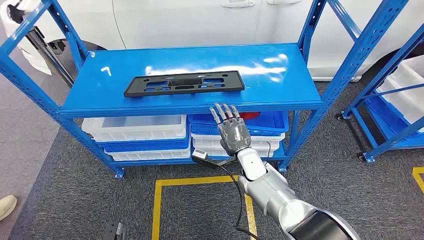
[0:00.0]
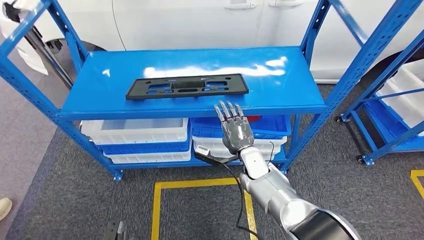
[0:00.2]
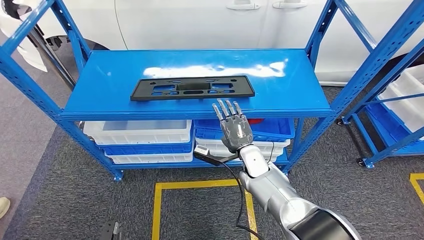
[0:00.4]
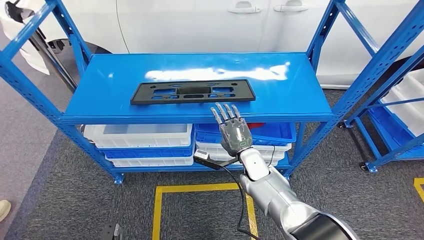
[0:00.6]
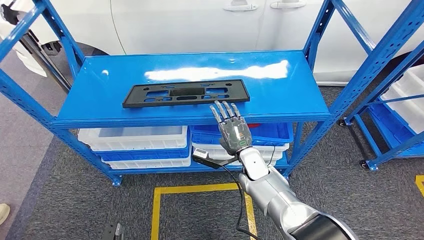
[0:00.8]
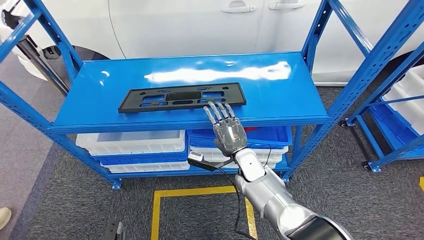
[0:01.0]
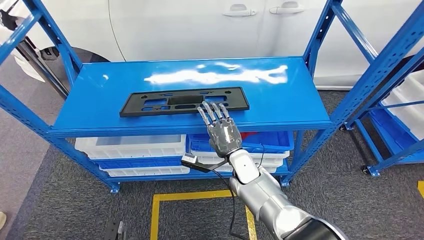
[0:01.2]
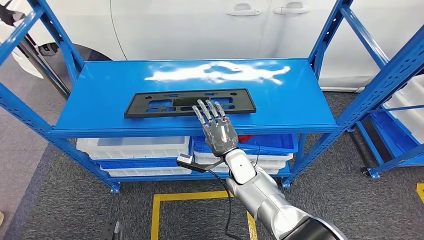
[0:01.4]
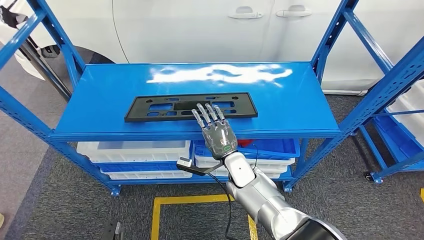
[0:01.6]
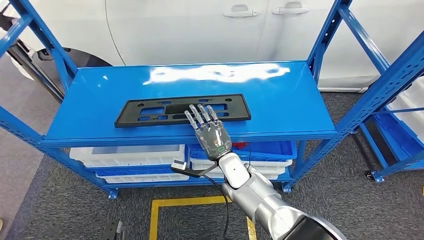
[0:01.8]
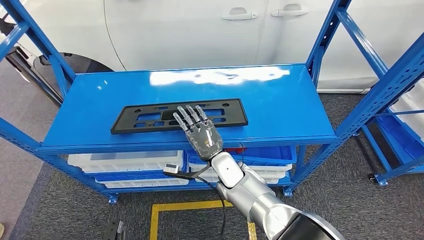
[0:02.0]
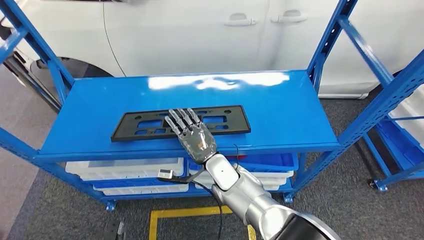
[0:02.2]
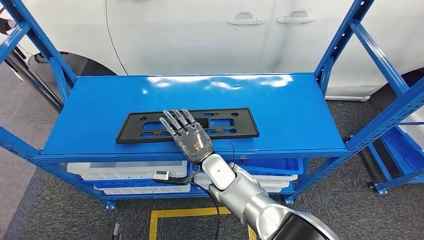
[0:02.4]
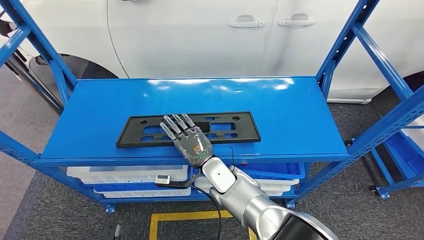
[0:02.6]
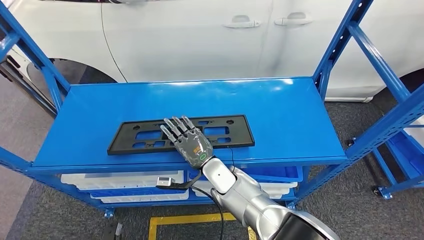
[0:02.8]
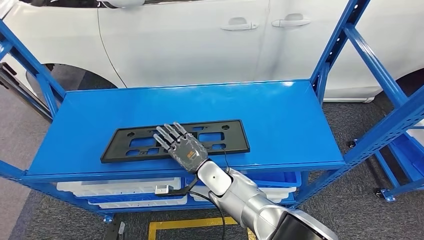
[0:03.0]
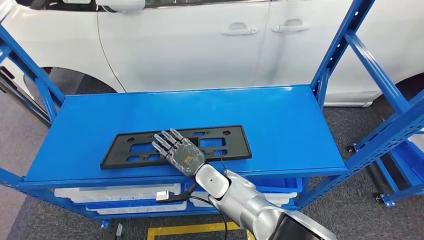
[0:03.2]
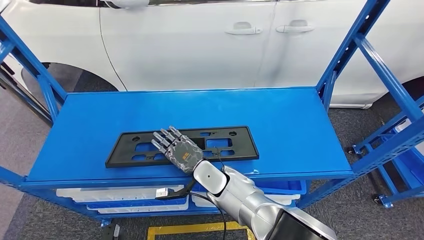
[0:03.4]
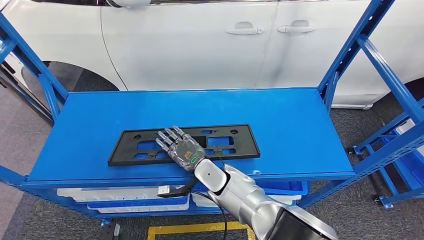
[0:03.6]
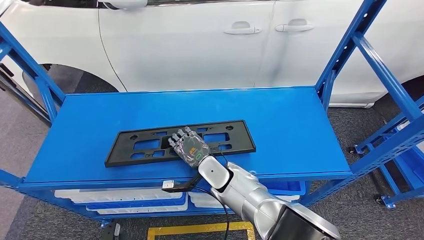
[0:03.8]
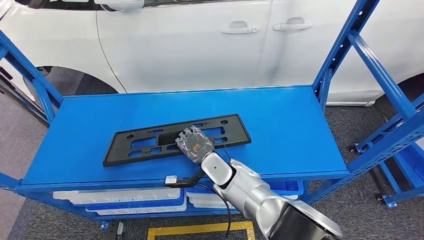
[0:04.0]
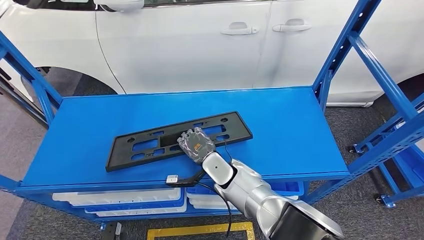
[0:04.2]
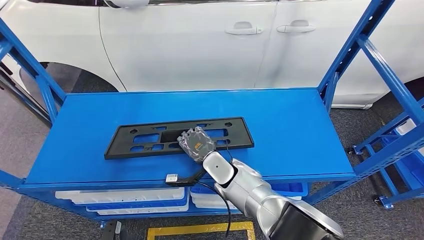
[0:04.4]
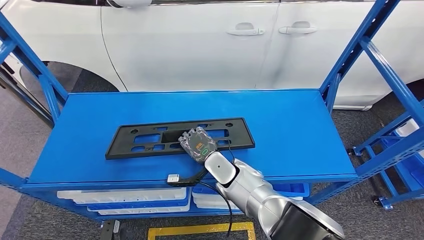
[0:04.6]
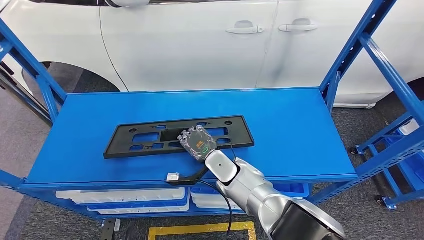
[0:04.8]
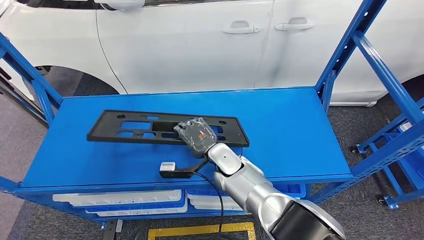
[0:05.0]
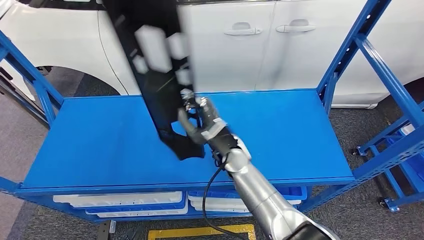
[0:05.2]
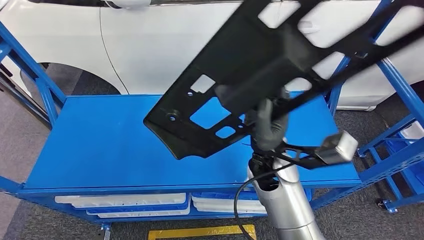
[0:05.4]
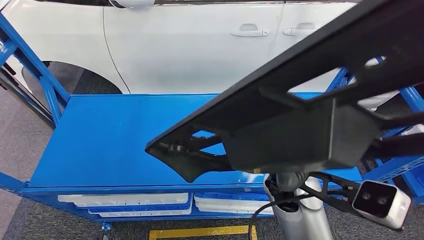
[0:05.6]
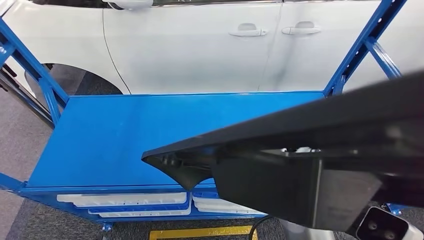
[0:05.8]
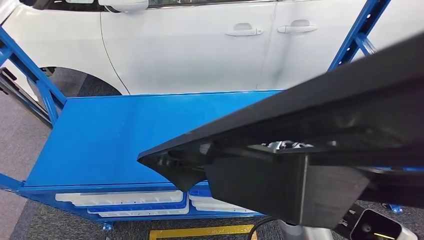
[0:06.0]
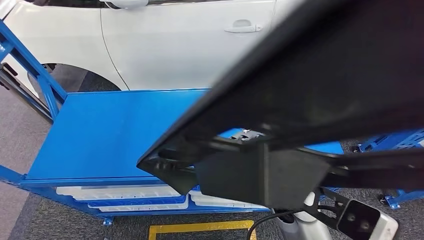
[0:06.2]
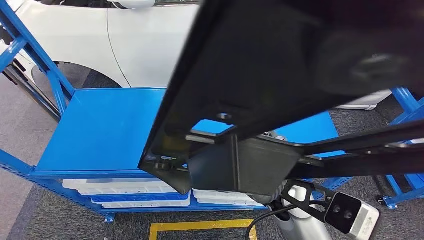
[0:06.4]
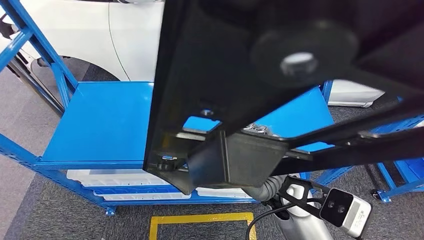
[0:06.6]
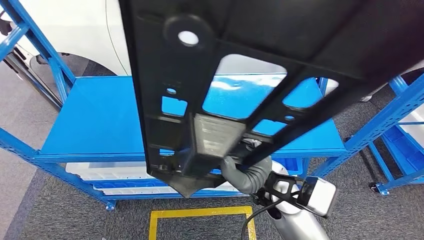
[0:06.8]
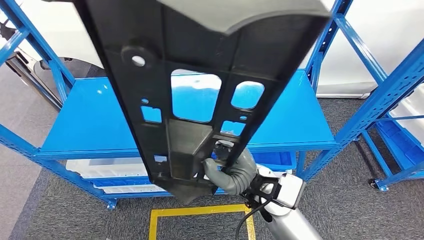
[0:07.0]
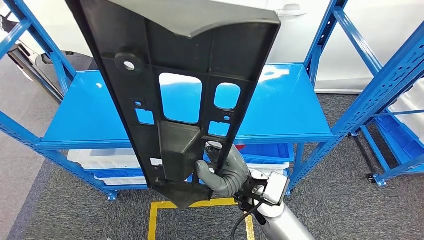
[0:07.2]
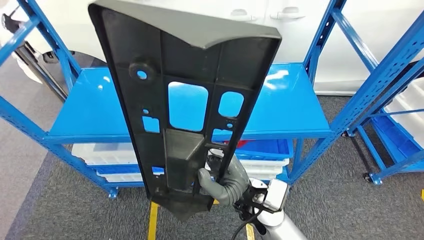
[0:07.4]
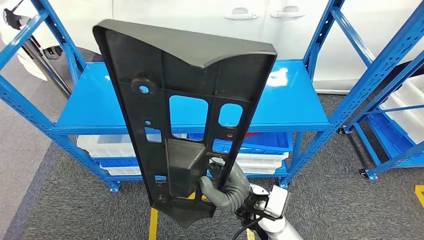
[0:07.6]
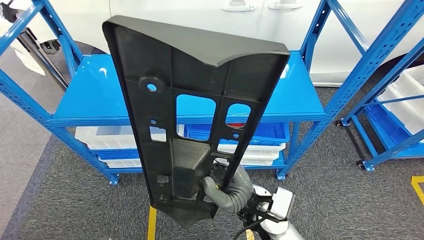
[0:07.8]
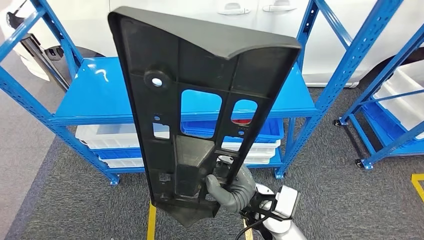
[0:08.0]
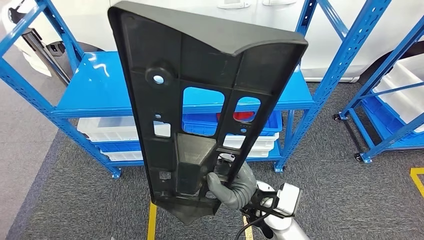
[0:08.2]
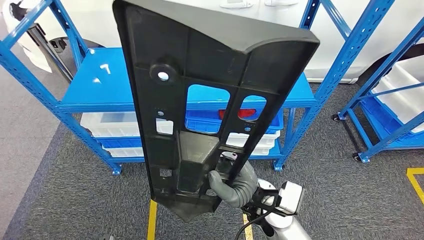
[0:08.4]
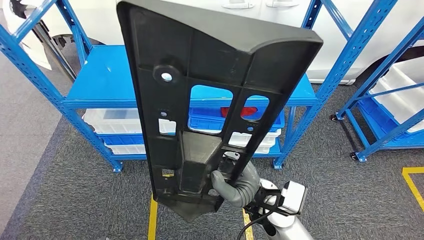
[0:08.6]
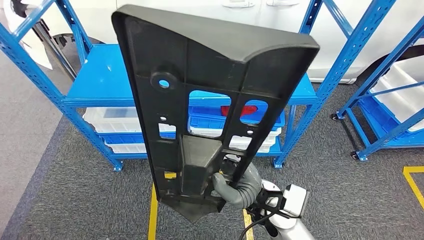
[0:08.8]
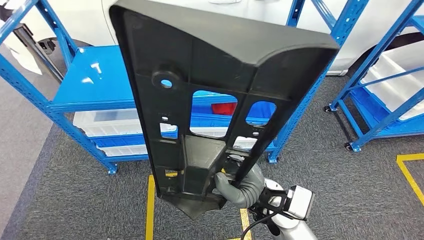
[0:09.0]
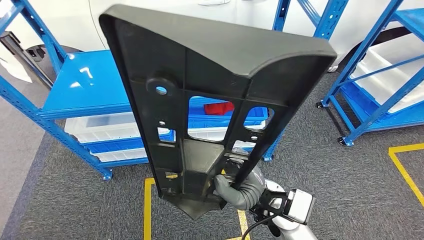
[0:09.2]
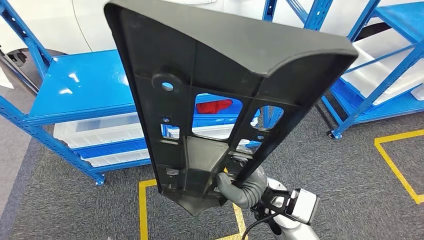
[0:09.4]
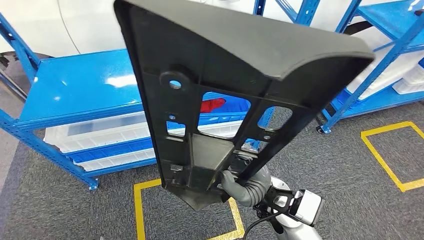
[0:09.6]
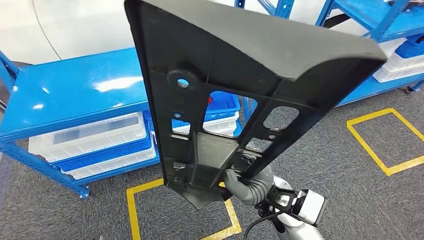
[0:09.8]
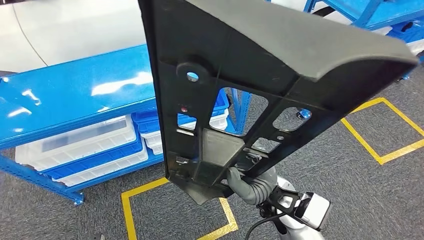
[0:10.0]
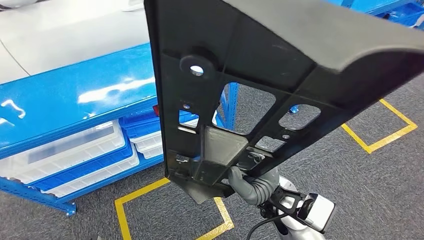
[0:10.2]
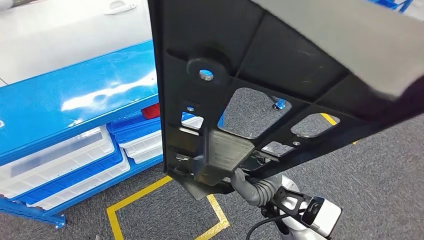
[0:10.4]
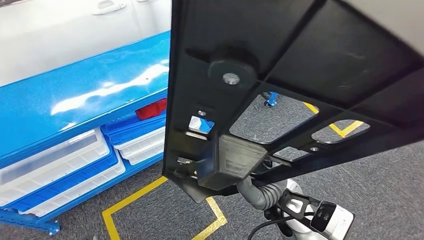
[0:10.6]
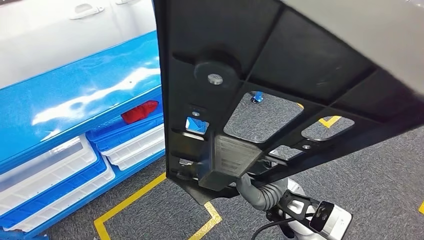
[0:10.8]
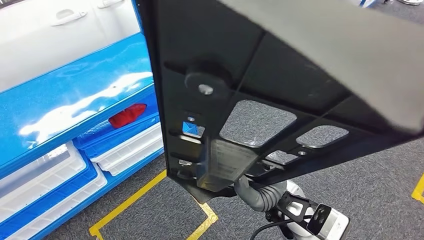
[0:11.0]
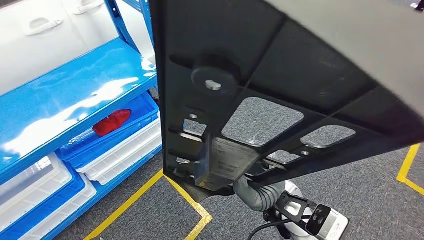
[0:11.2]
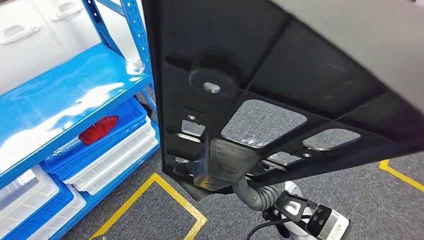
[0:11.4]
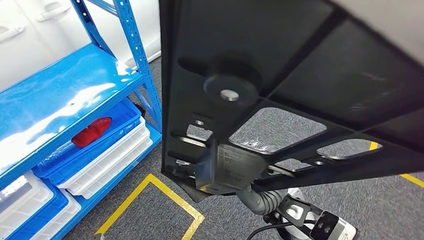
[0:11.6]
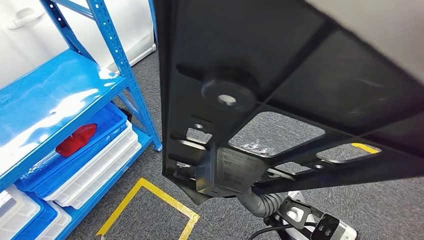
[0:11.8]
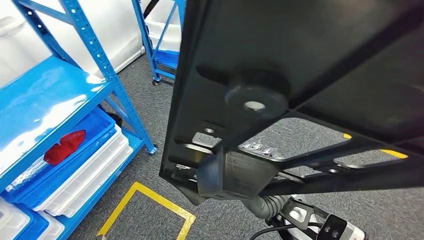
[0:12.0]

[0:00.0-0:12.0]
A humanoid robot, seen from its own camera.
Step, 0:00.0 to 0:05.2: Pick up the large material from the shelf.

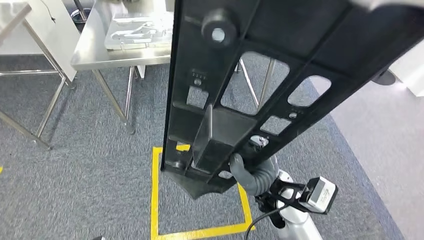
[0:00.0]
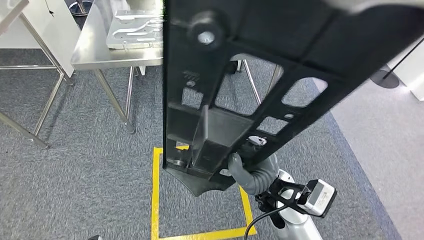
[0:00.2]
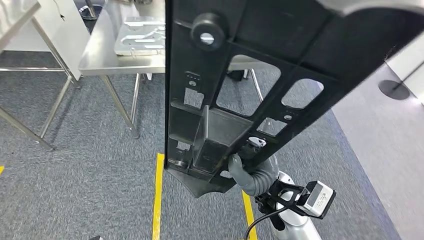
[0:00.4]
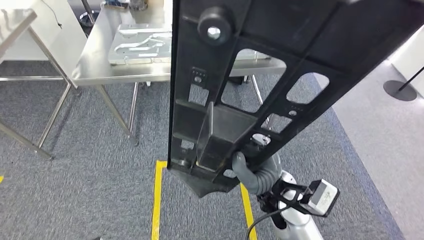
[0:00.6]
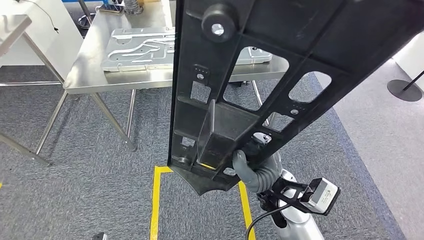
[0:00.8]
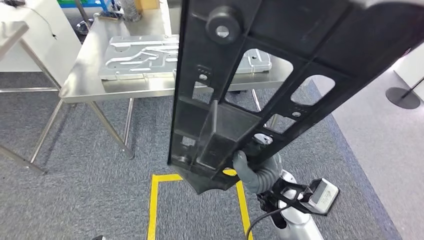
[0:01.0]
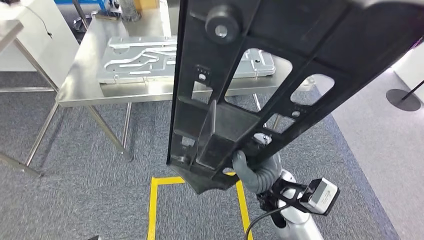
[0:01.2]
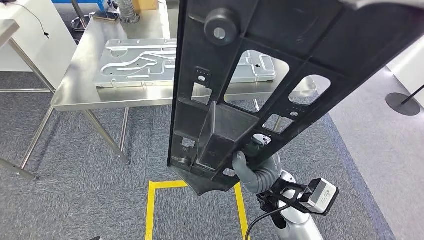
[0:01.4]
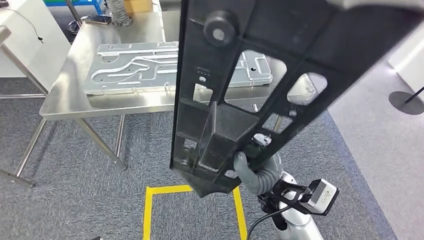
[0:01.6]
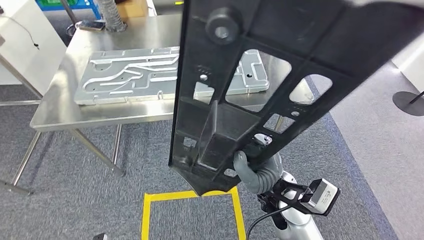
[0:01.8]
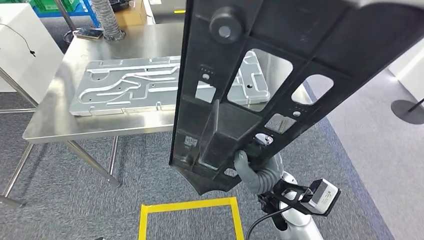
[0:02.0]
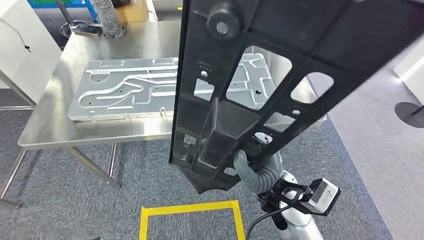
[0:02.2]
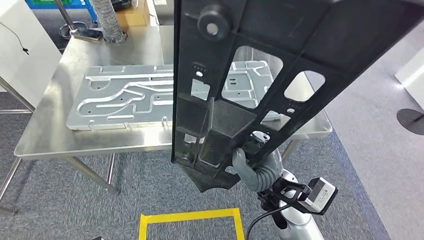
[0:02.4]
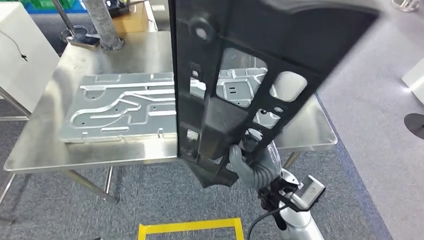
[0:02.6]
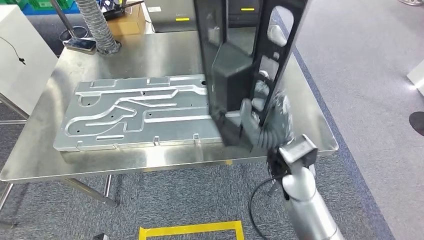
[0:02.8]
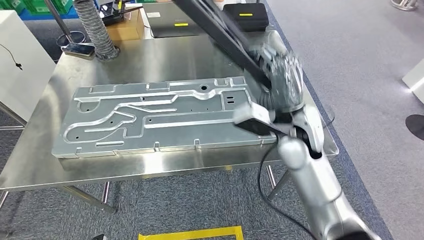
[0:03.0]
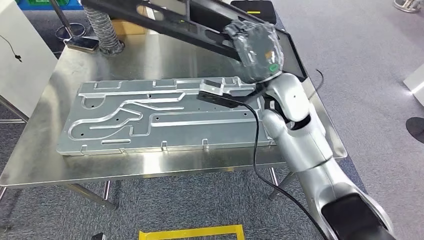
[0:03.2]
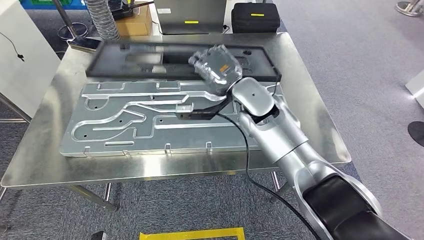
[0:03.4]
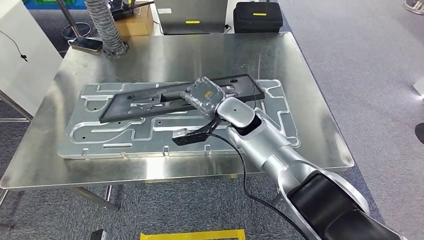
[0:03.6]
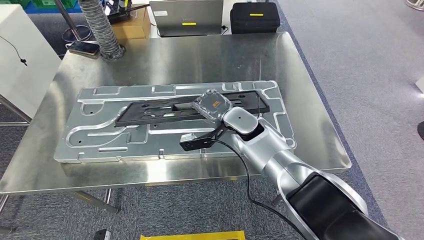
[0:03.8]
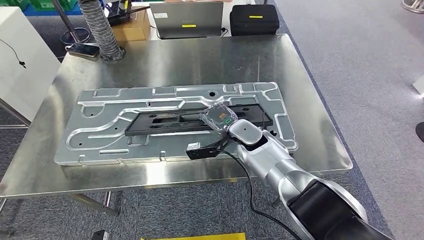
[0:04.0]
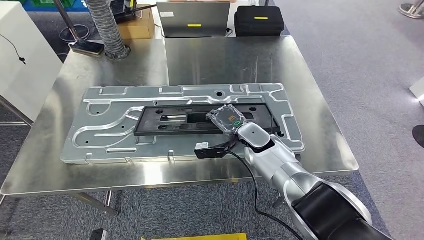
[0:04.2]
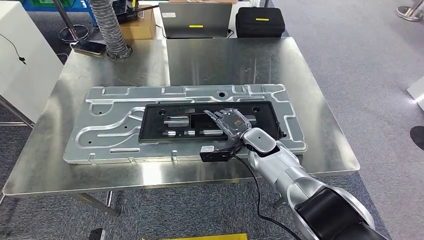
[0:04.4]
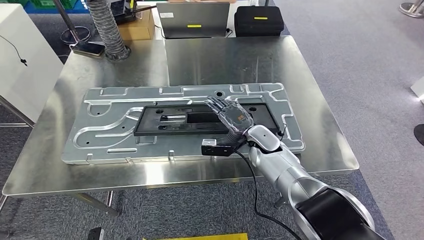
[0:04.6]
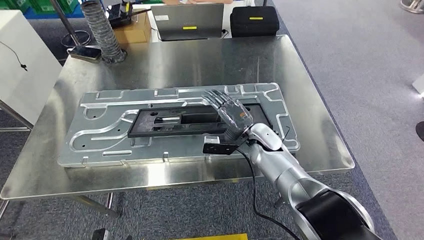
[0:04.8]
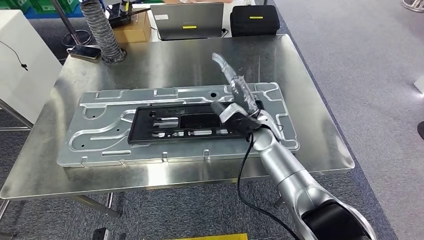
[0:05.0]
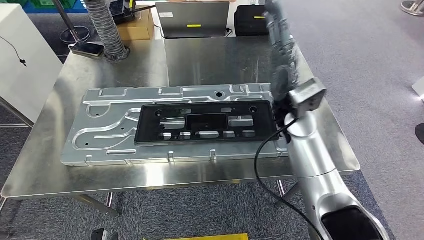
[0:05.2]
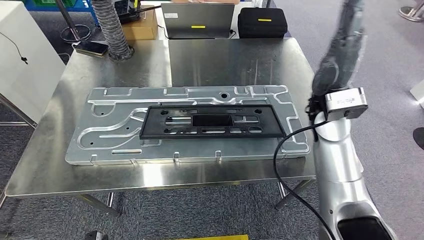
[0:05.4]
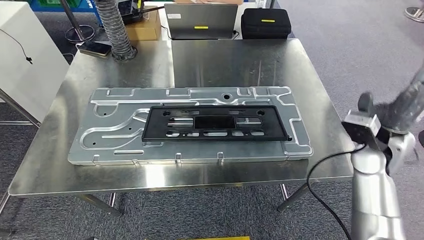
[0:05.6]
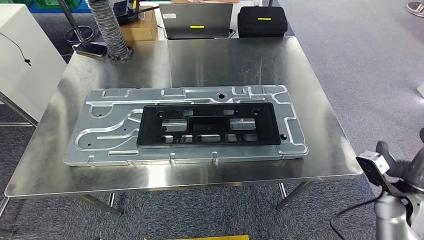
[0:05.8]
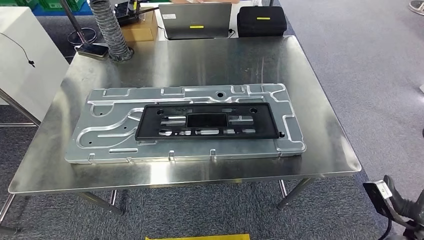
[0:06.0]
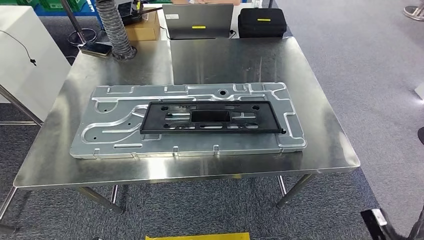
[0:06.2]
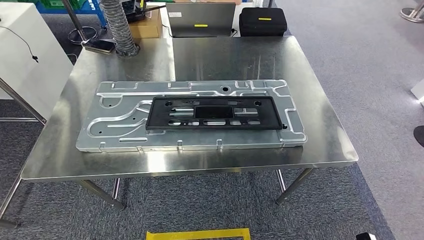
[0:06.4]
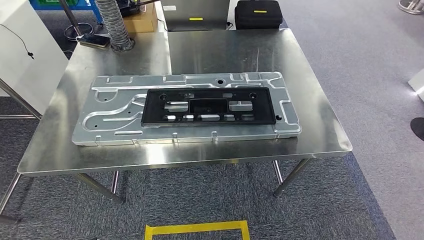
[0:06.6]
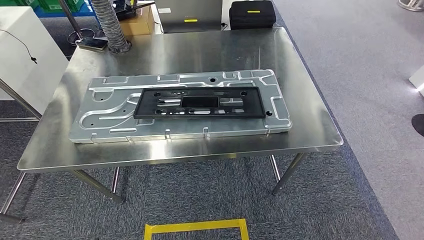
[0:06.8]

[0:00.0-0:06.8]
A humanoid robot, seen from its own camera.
Step, 0:00.0 to 0:03.2: Move the large material to the workbench.
Step, 0:03.4 to 0:05.6: Insert the large material into the corresponding slot on the workbench.
